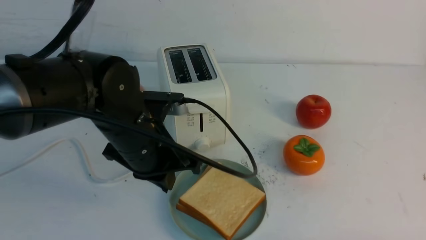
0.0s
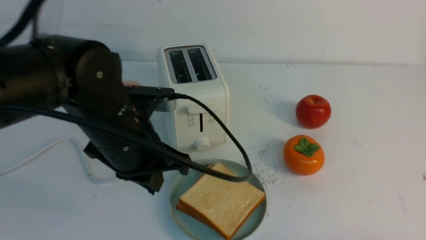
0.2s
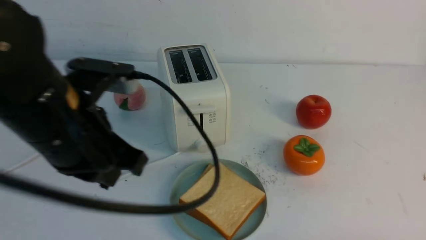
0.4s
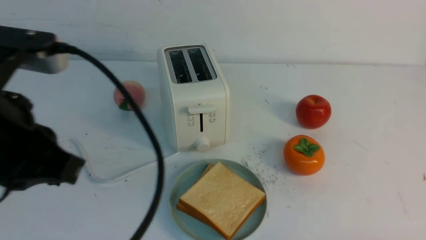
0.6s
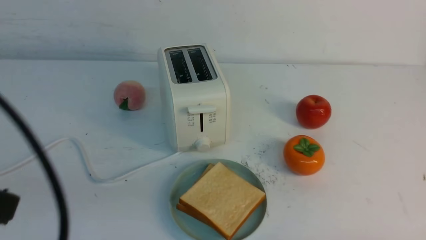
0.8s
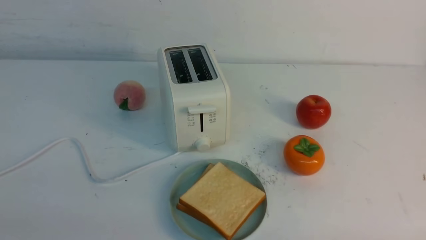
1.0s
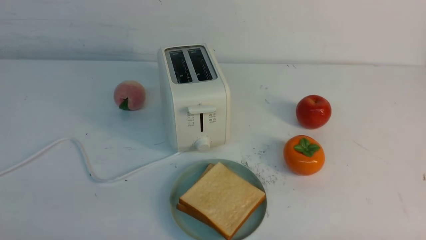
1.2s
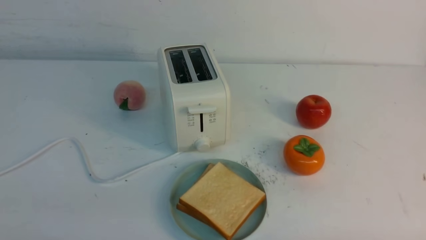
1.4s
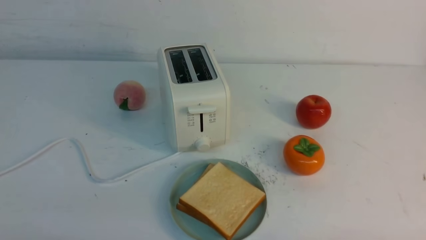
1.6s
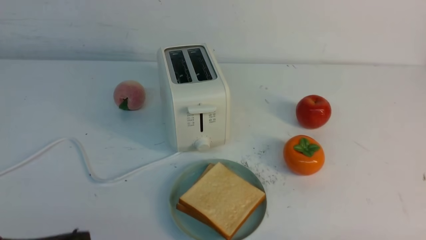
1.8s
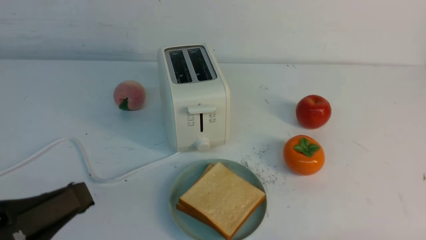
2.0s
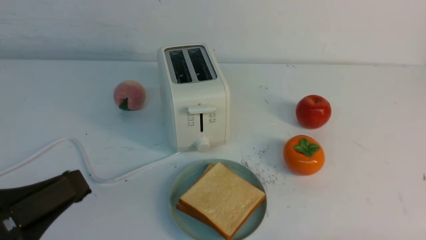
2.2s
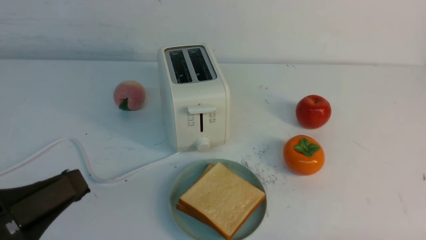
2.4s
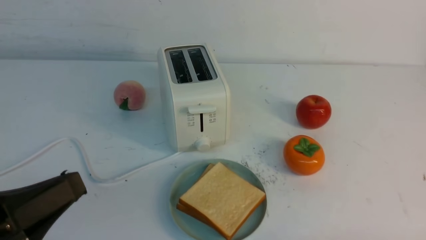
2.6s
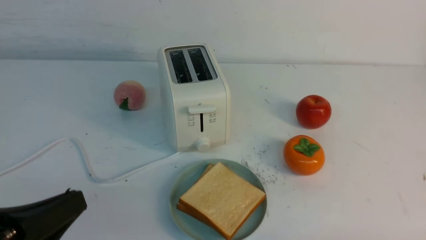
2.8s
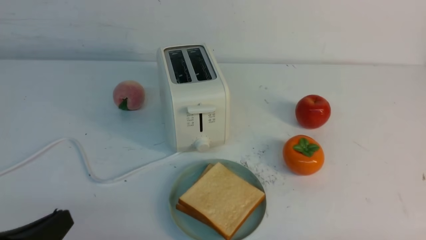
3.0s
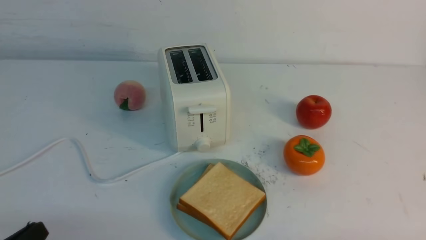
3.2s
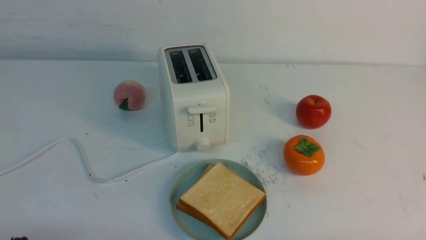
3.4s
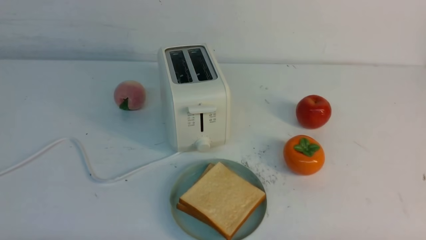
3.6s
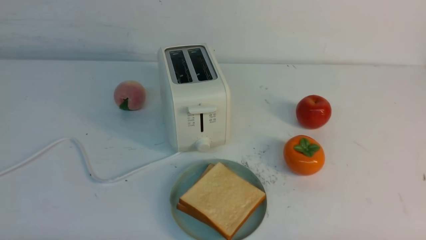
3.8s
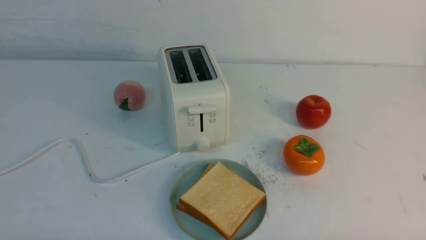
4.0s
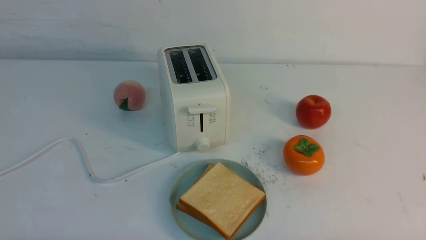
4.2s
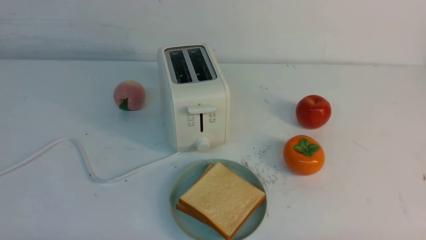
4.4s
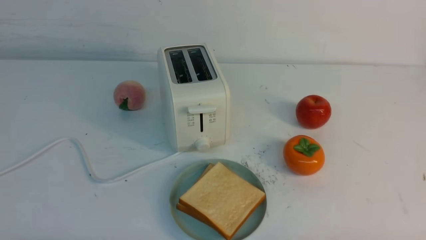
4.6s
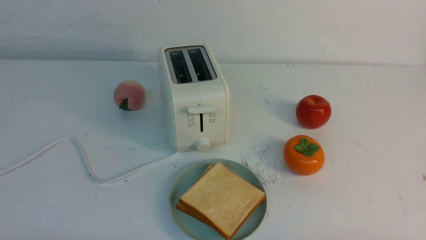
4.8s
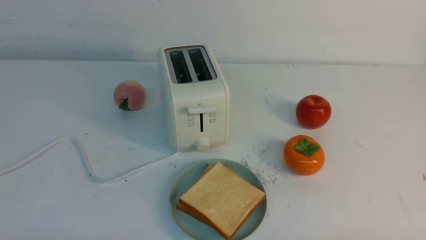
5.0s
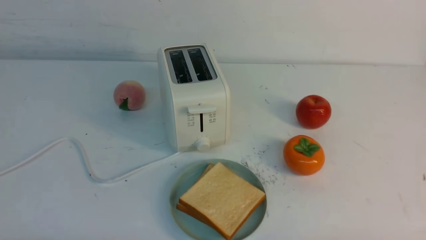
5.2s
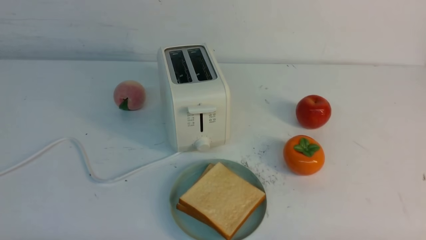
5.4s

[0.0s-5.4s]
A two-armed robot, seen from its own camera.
Task of the whole recording: take toasted bread from bread machine on white table place on plate.
0.0s to 1.4s: The left gripper moves backward and to the left, about 25 cm.
1.4s to 2.8s: The left gripper ends up about 5 cm from where it was.
2.8s to 4.0s: The left gripper moves downward, approximately 10 cm.
4.0s to 5.4s: Neither gripper changes place.
